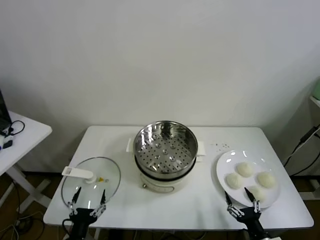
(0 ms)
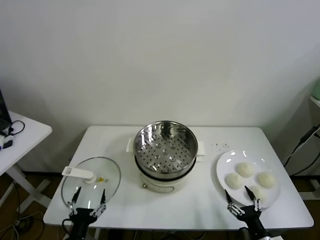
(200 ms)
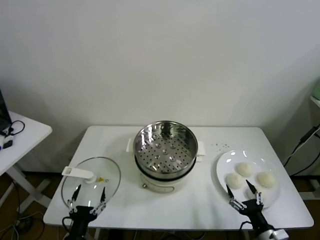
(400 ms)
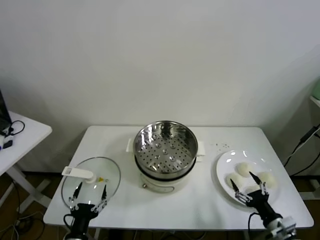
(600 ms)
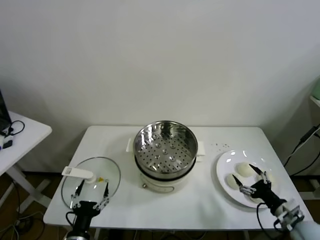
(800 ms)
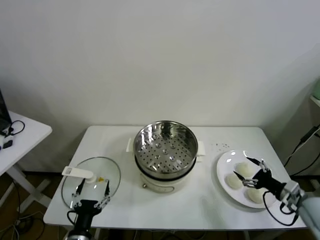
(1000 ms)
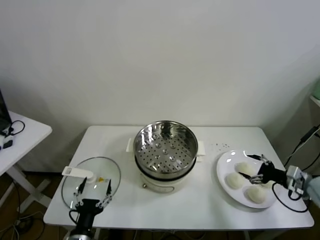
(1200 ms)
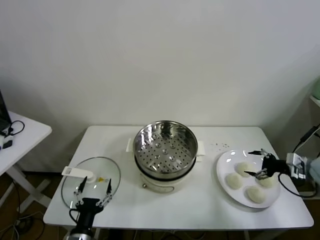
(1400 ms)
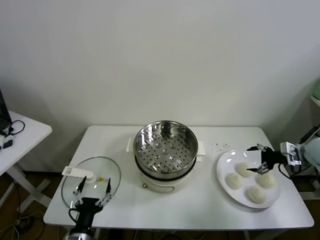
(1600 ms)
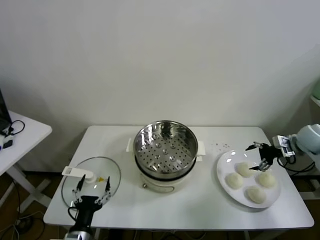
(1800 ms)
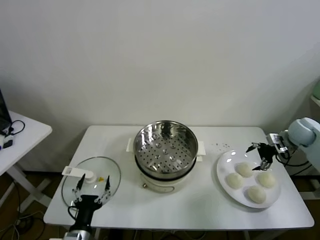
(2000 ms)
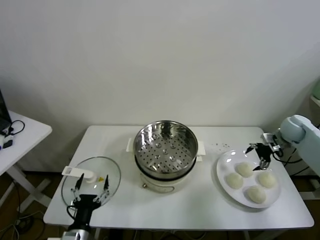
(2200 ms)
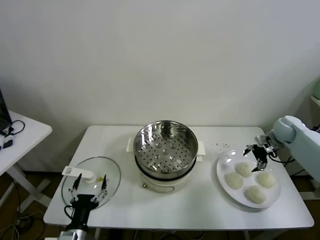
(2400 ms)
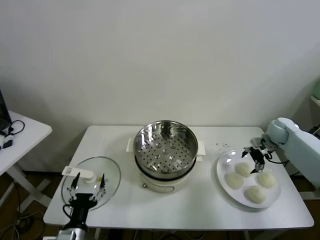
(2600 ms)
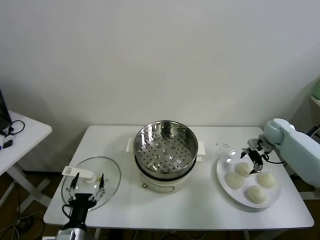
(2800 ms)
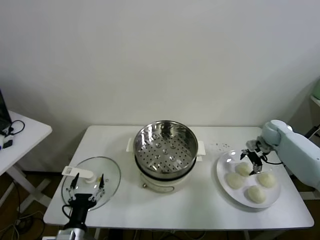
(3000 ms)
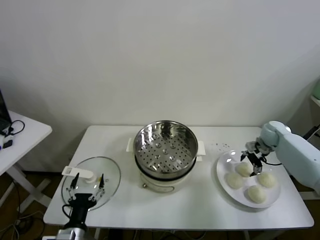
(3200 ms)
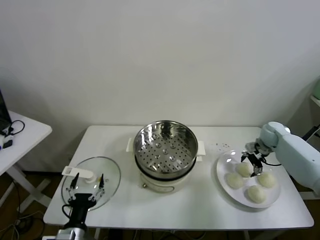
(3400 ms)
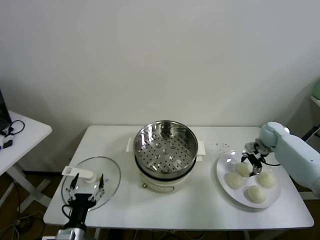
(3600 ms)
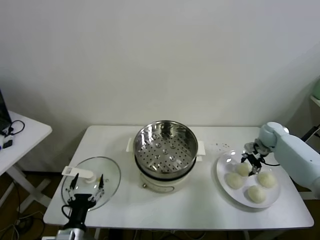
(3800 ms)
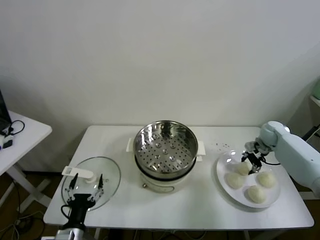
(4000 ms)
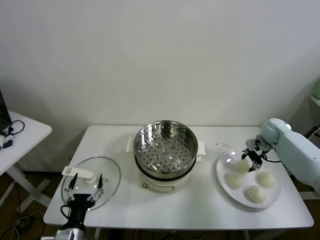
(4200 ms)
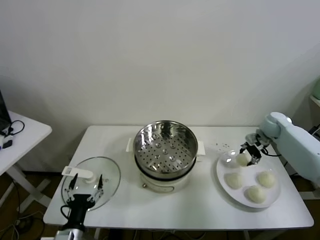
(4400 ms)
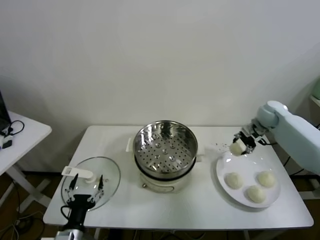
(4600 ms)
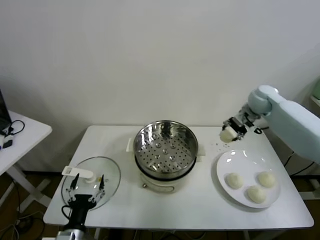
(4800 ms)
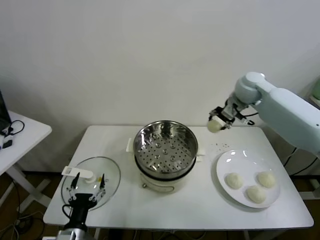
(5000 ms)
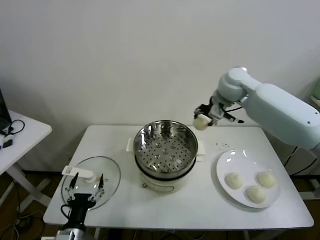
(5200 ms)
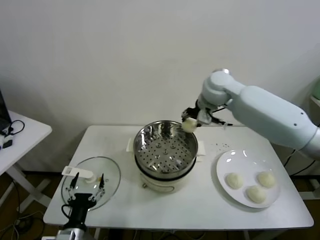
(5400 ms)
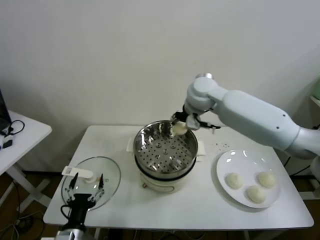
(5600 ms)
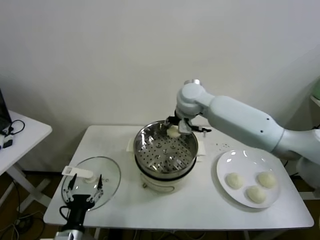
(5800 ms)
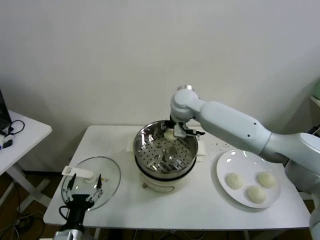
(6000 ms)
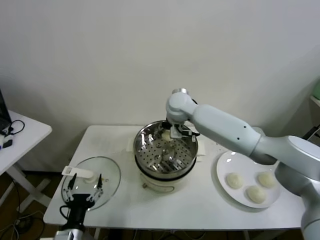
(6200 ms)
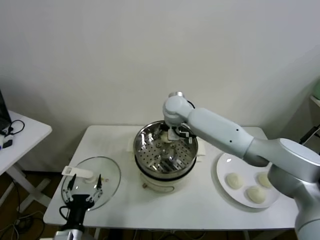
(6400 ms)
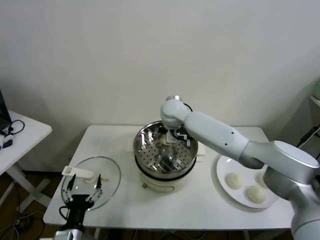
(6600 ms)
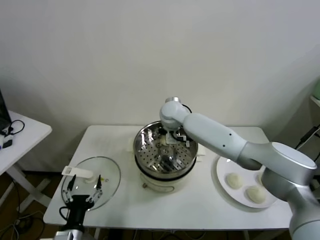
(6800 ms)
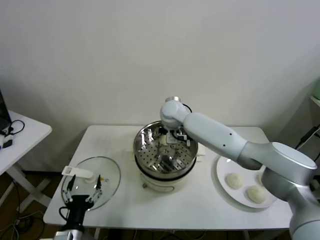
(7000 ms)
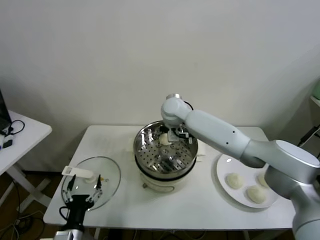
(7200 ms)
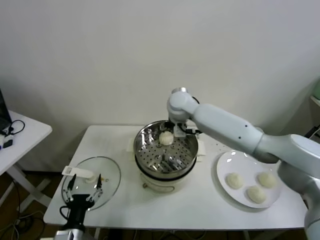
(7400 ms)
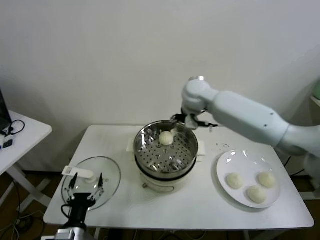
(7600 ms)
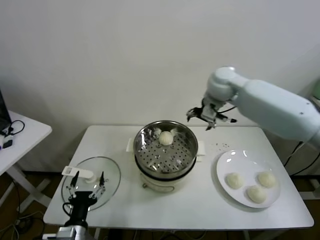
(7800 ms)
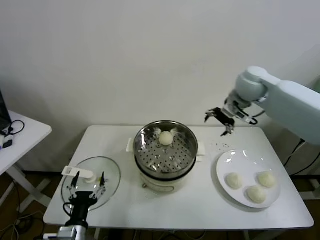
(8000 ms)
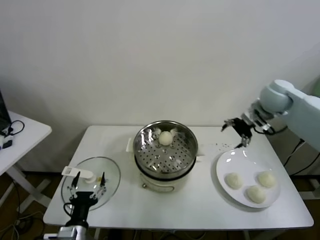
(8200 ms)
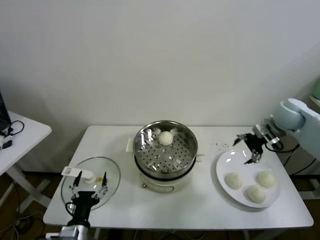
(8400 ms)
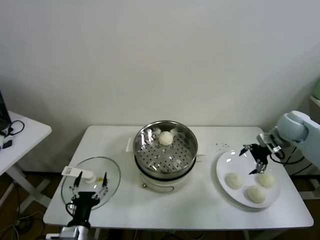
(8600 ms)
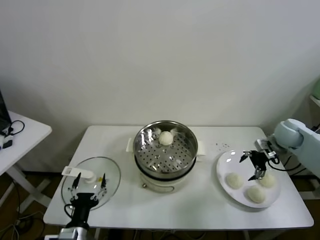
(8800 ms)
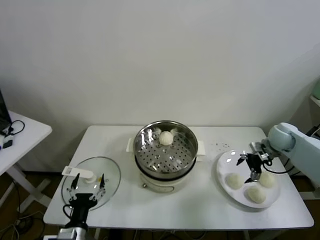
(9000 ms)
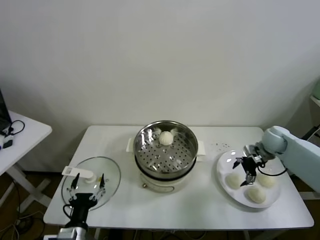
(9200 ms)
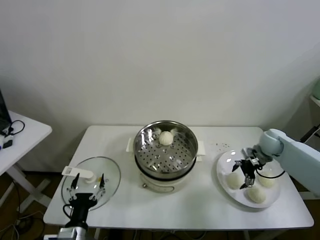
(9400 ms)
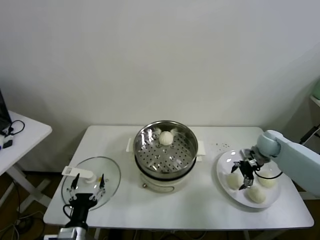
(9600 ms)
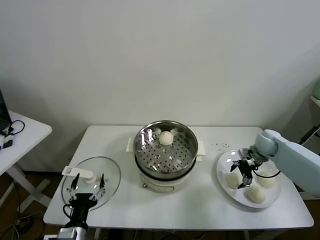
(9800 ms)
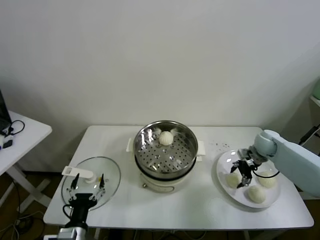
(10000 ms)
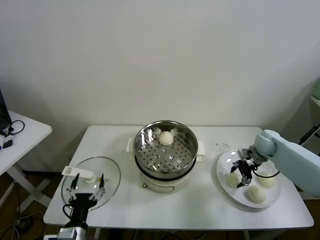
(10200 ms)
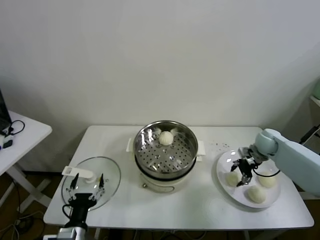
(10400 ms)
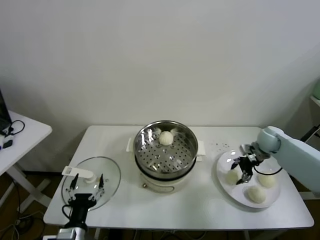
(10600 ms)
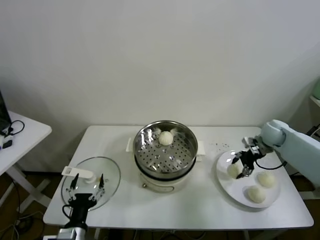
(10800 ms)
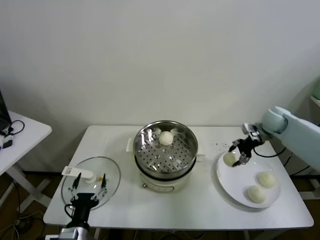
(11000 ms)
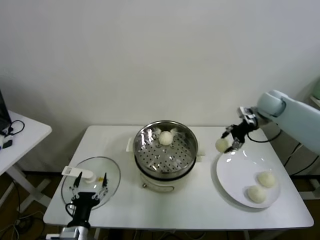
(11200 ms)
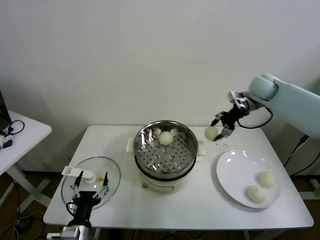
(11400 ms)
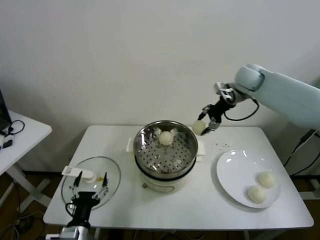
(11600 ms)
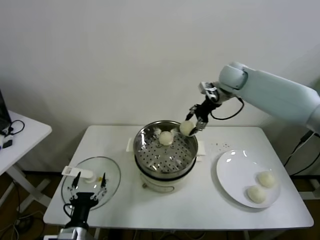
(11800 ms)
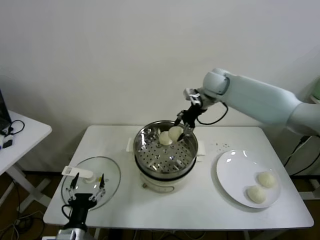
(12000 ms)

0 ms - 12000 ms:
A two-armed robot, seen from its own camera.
Task of the whole recording: take steamed baozi put them in steamer.
Step, 0 ms - 3800 ms: Grasp the baozi in the plate with right gripper.
Step, 4000 ms - 7200 ms: Place the baozi on the steamer with right gripper.
Step, 7400 ms - 10000 ms: Grasp the baozi in the plate with right gripper.
1600 ms - 3000 ms: The right gripper travels forward, downward and to the left by approximately 15 cm.
3000 ms - 4400 ms: The right gripper is displaced upward by about 5 cm, and closes its fingers.
4400 ms - 6000 ms: The right gripper is displaced to the left by roughly 35 cm.
6000 ms - 7600 ms: The right gripper moves to the right and upward, about 10 cm, and opens.
7600 ms - 9000 ms: The right gripper heads to the right and downward, covering roughly 35 cm.
9000 ms - 10400 ms: The right gripper closes its fingers.
10400 ms - 12000 ms: The right gripper goes roughly 30 cm to the left and upward.

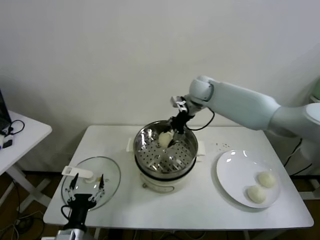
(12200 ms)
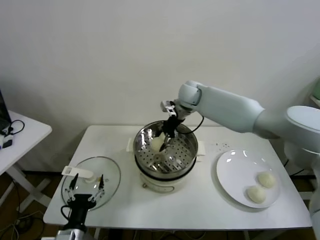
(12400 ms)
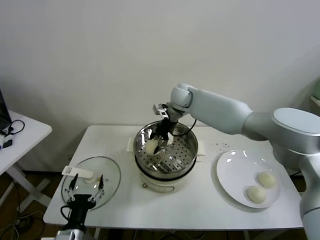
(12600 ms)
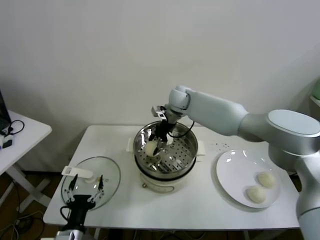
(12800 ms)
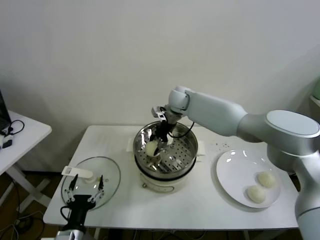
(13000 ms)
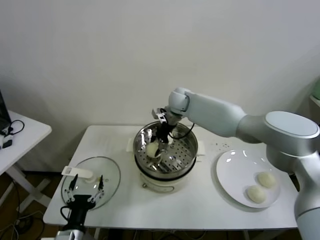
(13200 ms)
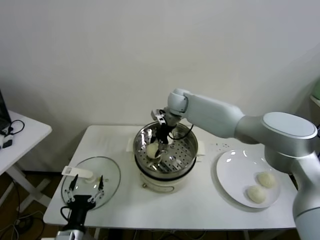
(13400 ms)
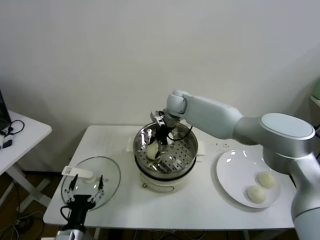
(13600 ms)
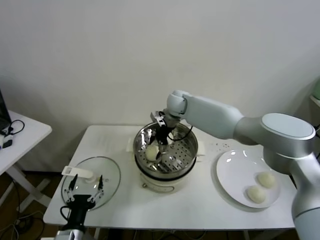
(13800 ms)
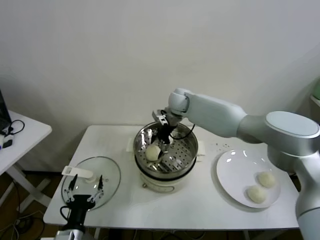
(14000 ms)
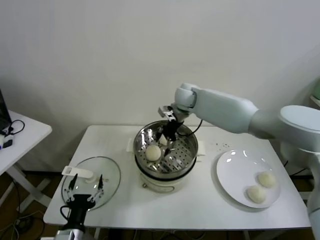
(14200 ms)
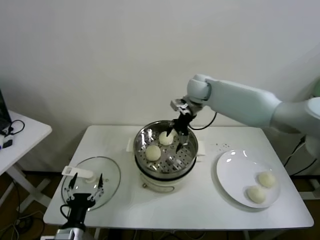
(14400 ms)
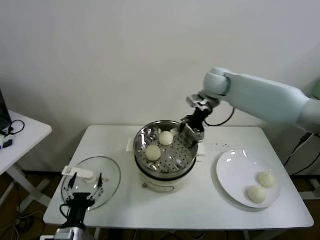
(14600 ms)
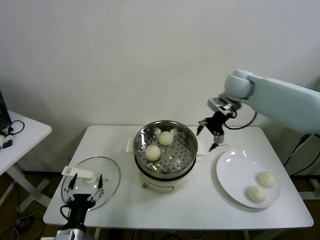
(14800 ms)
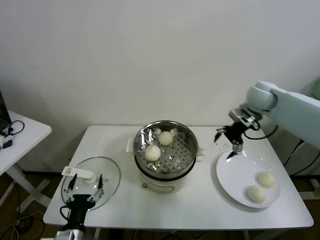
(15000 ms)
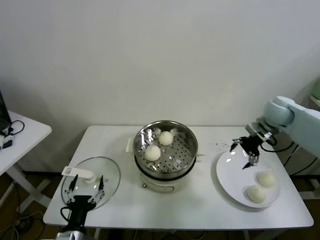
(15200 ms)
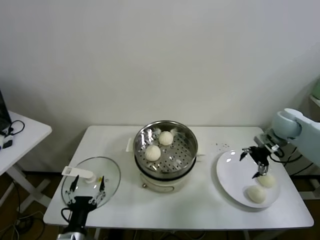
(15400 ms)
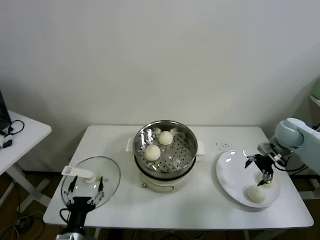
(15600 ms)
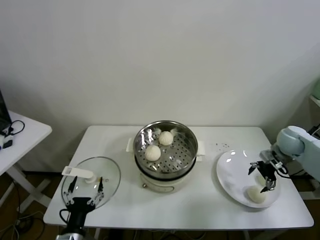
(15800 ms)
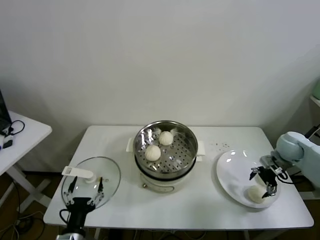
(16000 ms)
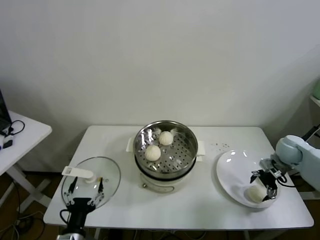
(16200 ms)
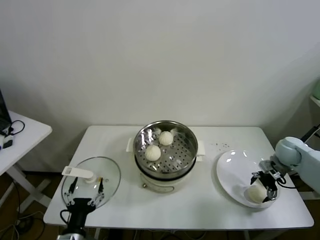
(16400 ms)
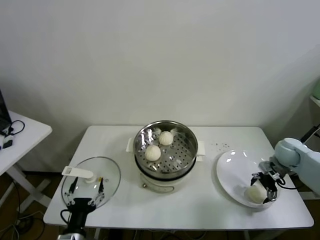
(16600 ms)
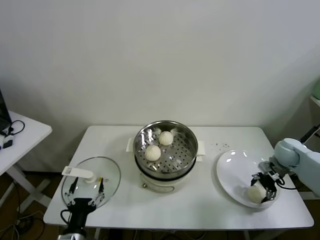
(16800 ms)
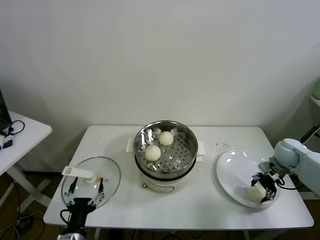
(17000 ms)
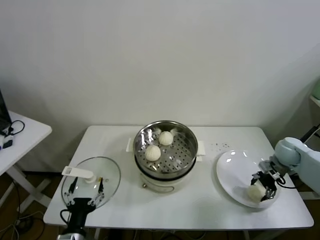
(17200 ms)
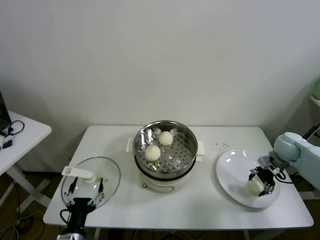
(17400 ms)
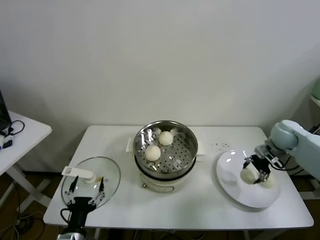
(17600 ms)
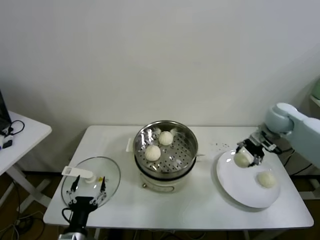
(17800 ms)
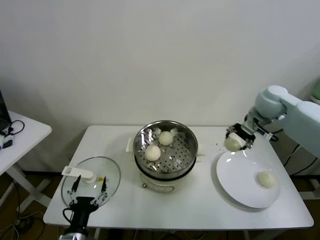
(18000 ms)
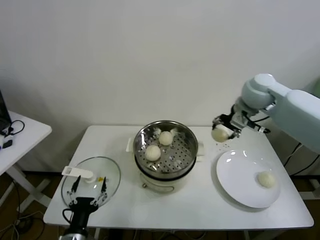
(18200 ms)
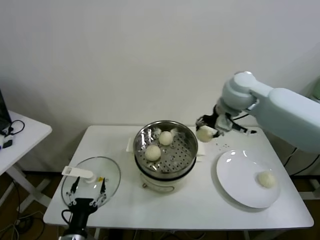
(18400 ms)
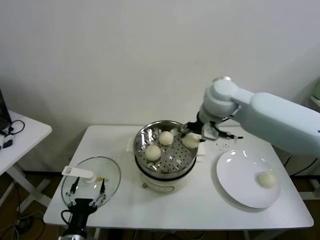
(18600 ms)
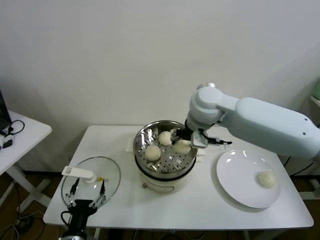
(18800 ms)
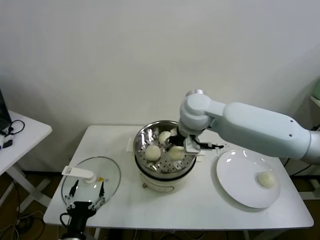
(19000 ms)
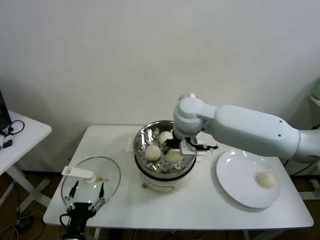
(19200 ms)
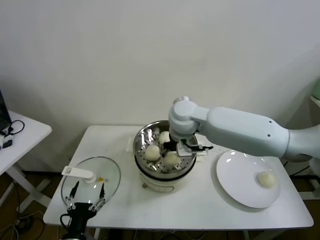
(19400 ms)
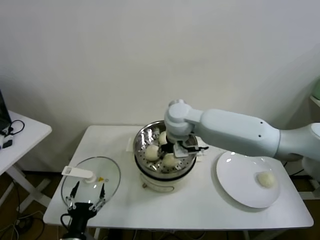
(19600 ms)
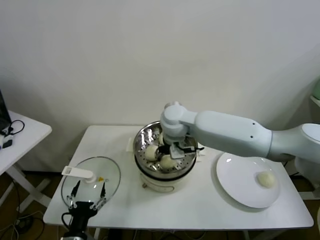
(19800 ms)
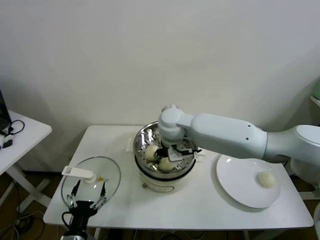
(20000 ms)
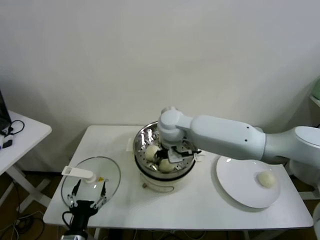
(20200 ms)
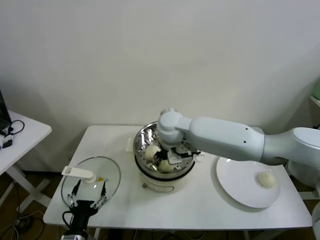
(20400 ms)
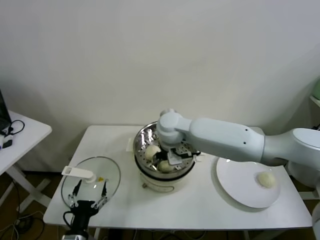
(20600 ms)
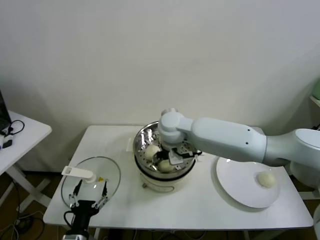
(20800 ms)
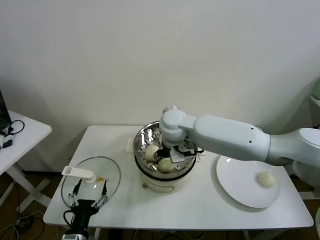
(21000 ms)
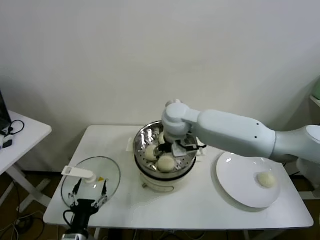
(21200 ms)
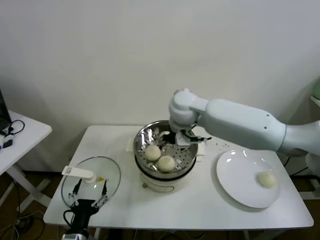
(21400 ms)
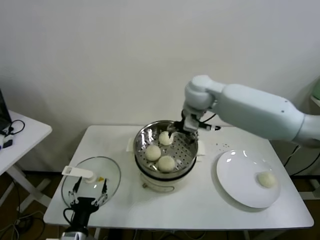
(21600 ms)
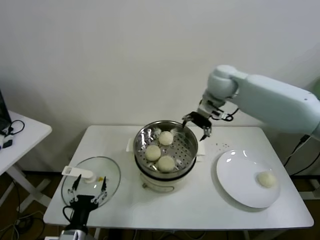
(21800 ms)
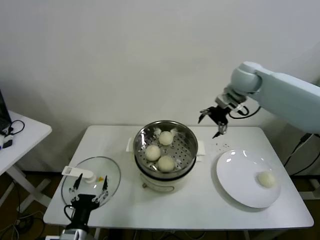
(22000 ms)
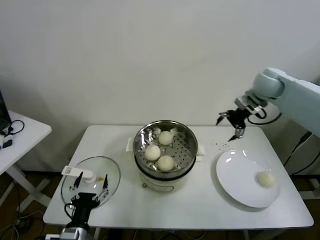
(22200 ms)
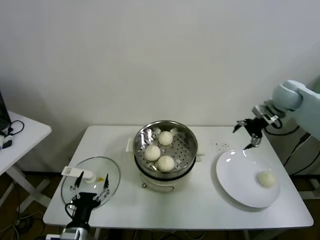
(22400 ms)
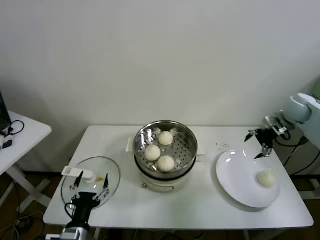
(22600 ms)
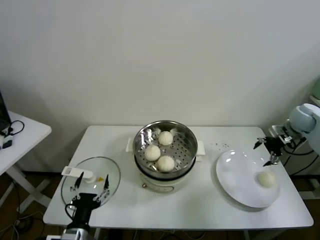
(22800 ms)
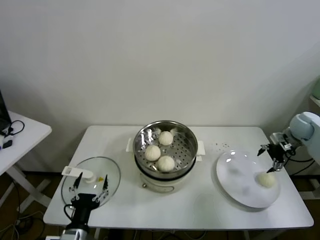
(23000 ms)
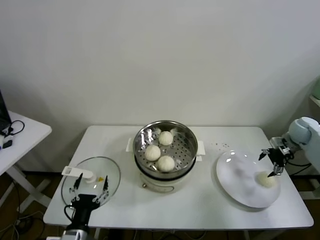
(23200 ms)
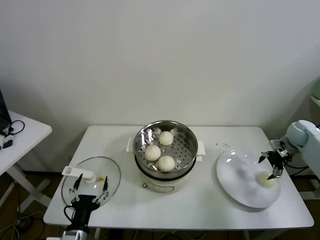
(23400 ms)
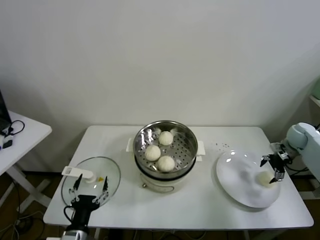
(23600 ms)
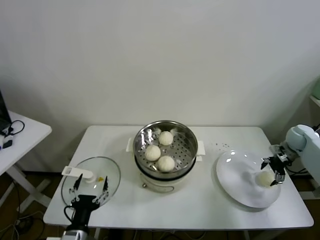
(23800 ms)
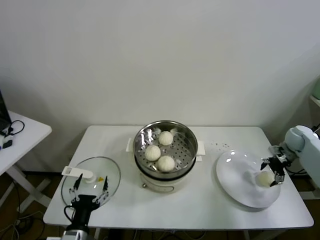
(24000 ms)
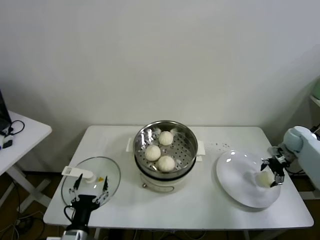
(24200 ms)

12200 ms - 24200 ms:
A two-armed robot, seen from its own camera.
Task of the whole recording: take steamed baozi put them in steamer.
Step, 14200 ms - 17000 ms: Grasp the baozi in the plate with right gripper.
Step, 17200 ms - 21000 ms: Place the baozi on the steamer with right gripper.
12200 ms - 13800 ms: The right gripper goes approximately 10 cm to the left and downward, and opens its fingers.
13800 ms - 15200 ms: The right gripper moves to the right, about 35 cm.
15200 ms - 16600 ms: The right gripper heads downward, to the right and backward, covering roughly 15 cm.
16600 ms - 18200 ms: The right gripper goes some 30 cm upward and to the left, and closes up.
18200 ms - 19800 ms: The right gripper goes about 25 cm to the left.
19800 ms - 21200 ms: The right gripper opens its fingers.
21200 ms - 22600 ms: The right gripper shifts roughly 40 cm to the right.
22600 ms - 24200 ms: The right gripper shifts approximately 15 cm downward and to the right.
